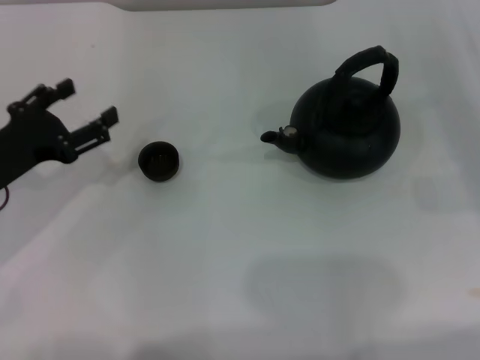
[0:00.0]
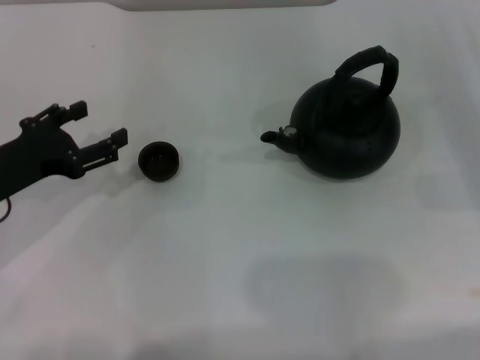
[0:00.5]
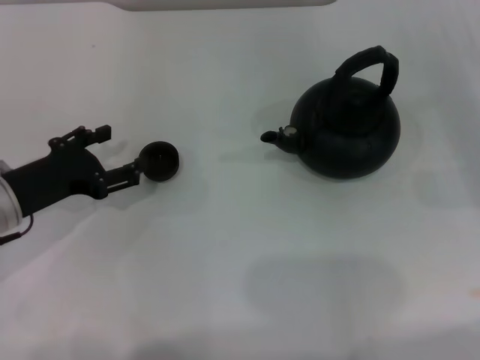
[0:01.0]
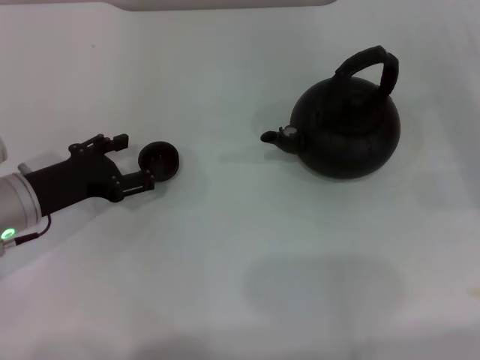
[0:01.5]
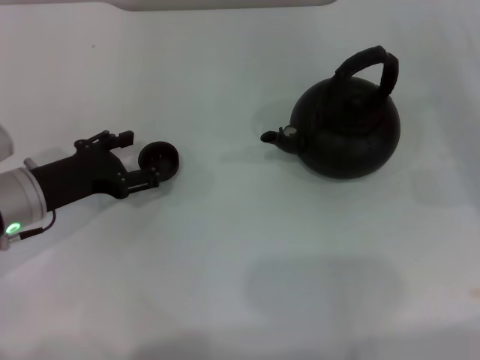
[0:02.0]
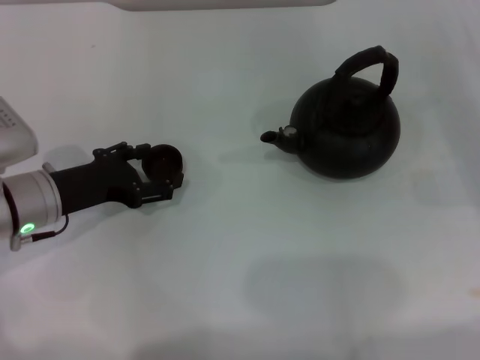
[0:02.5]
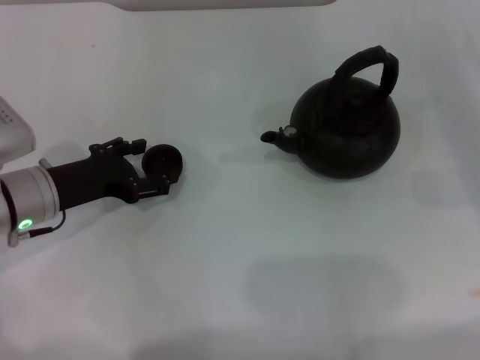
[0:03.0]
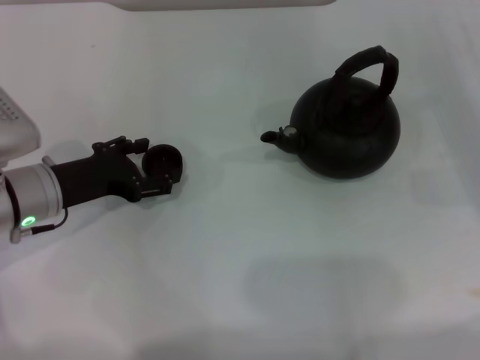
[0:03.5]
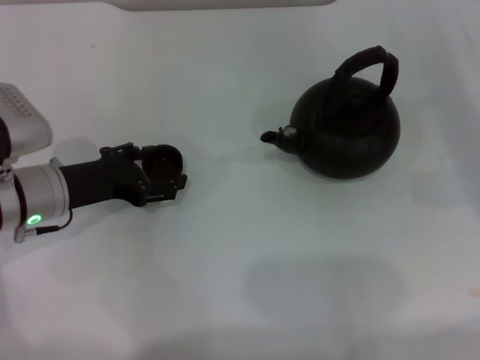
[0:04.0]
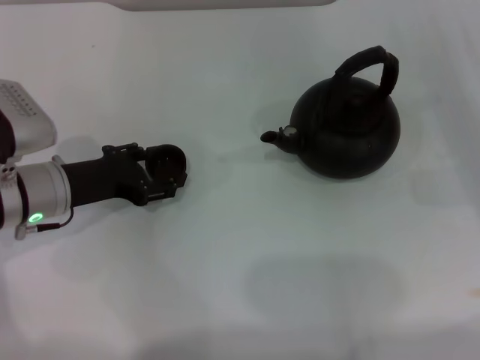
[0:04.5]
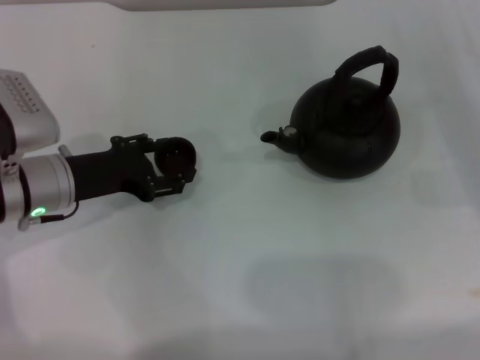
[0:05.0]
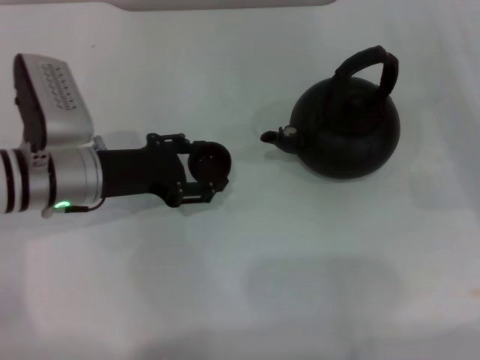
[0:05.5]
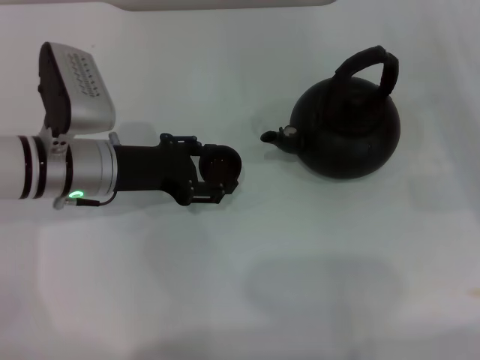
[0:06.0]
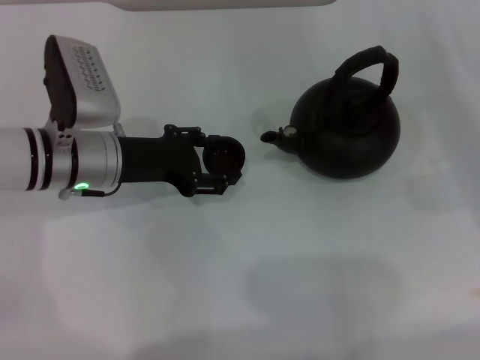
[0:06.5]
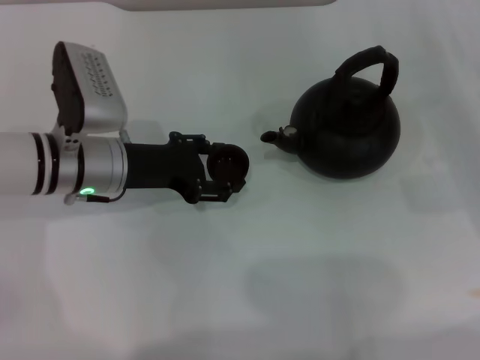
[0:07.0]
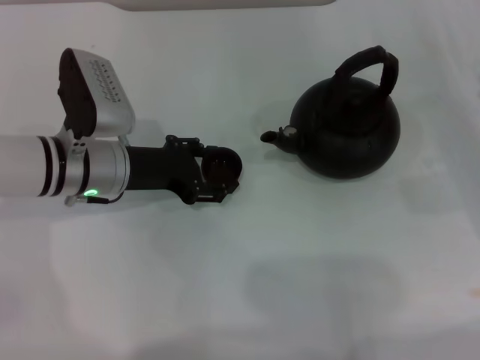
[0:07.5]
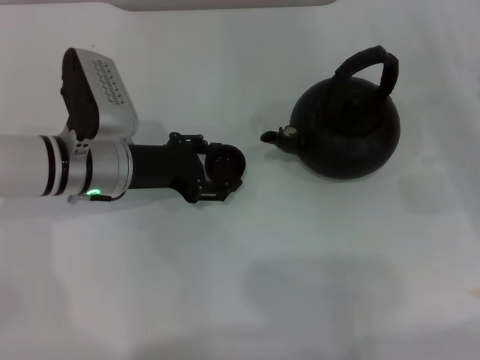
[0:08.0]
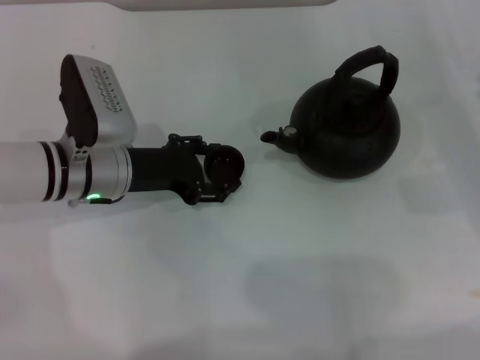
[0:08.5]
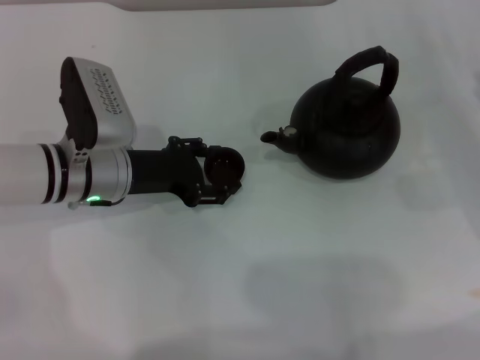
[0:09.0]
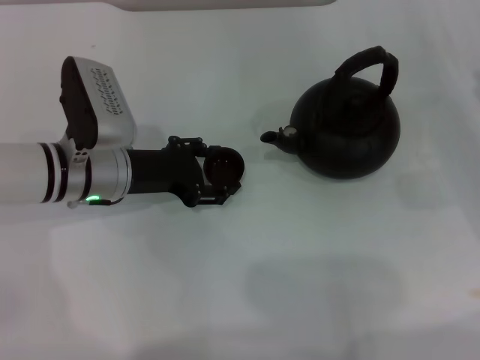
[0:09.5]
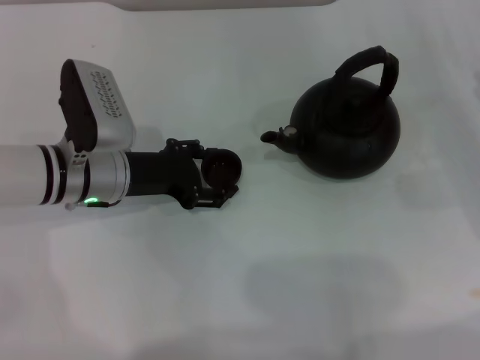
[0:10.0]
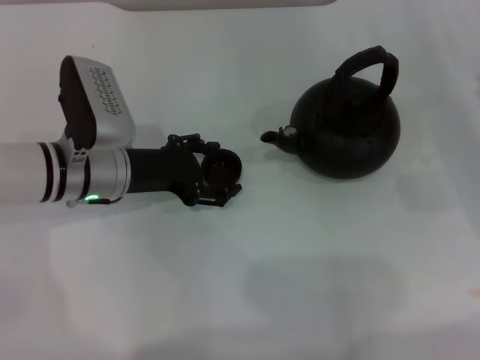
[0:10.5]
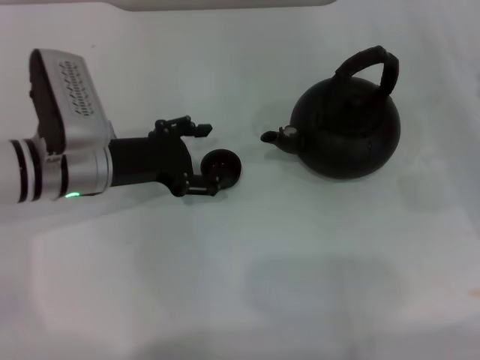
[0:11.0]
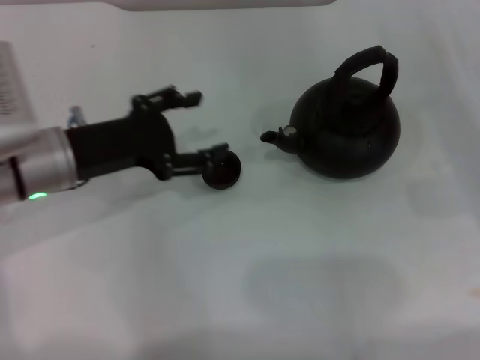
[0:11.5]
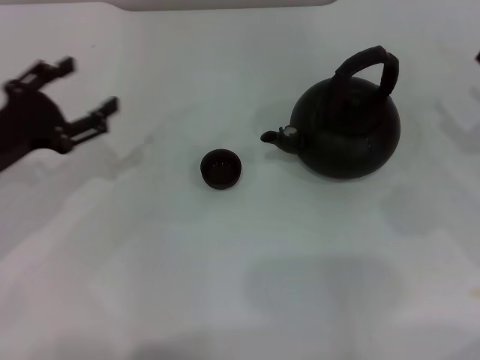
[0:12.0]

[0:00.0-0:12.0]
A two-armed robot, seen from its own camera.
Task of the whole recording: Grasp the handle of the teapot with one hand and pour tea into the teacup.
Step, 0:00.0 to 0:05.0: Pick up the teacup with the left gripper.
Step, 0:05.5 to 0:11.0: Place the teacup in the center of view with the left gripper.
0:00.0 to 0:02.0: The left gripper opens its fingers.
0:02.0 to 0:04.0: The grippers stay close to where they were, moving slightly.
0:04.0 to 0:06.0: The left gripper ends up about 5 cm from where it was, and closes its fingers.
0:06.0 to 0:08.0: The grippers make only small movements.
0:08.0 to 0:10.0: Both grippers stay put.
0:10.0 to 0:12.0: The left gripper heads to the left and backward, covering about 15 cm, and opens up.

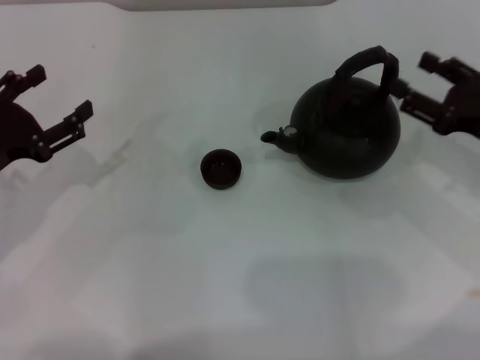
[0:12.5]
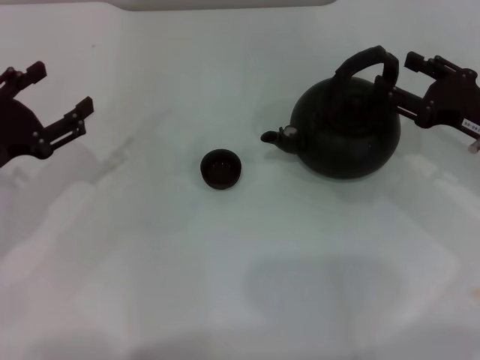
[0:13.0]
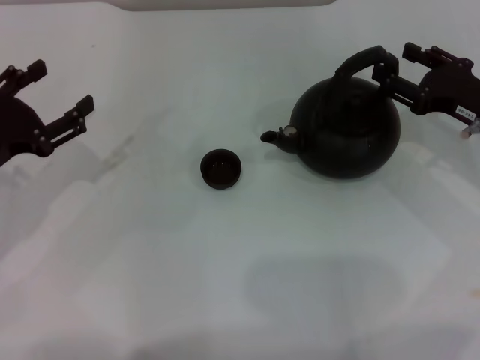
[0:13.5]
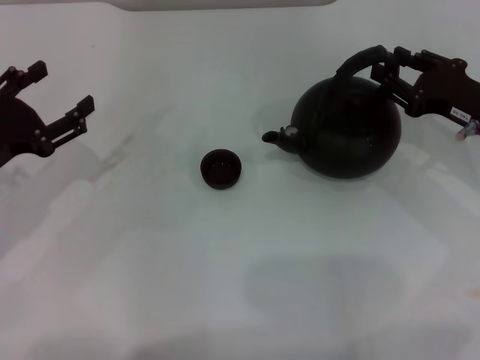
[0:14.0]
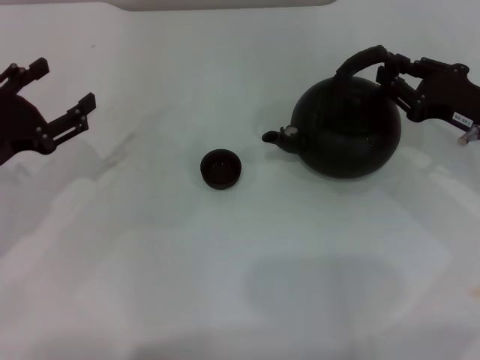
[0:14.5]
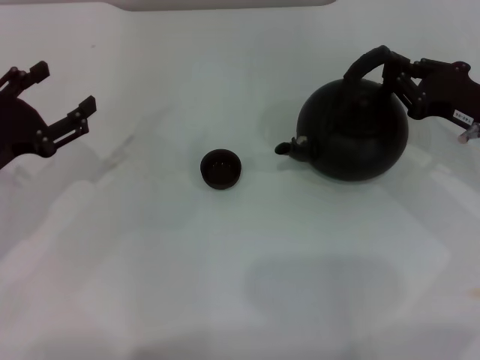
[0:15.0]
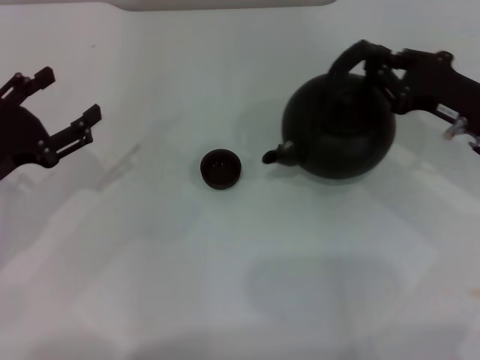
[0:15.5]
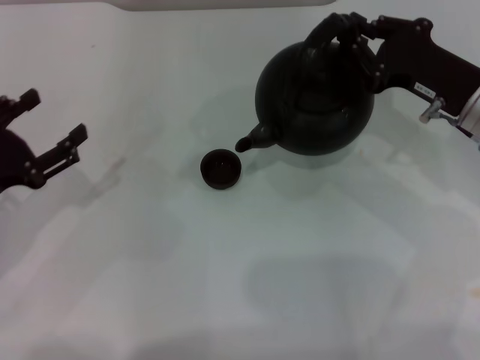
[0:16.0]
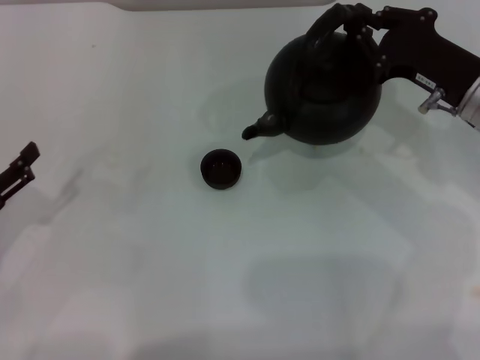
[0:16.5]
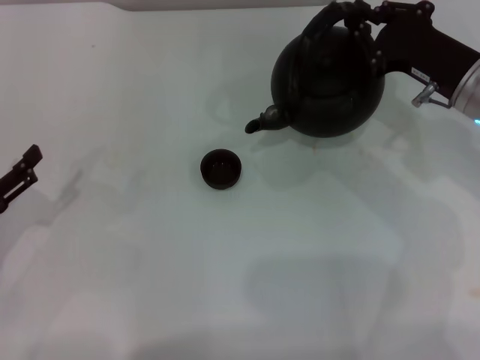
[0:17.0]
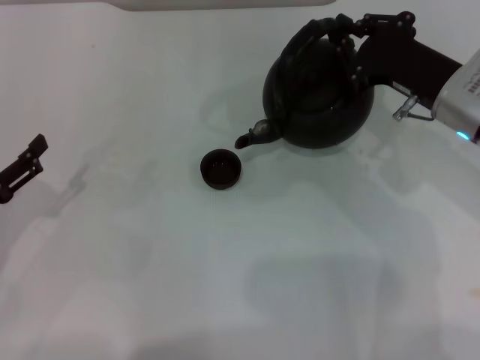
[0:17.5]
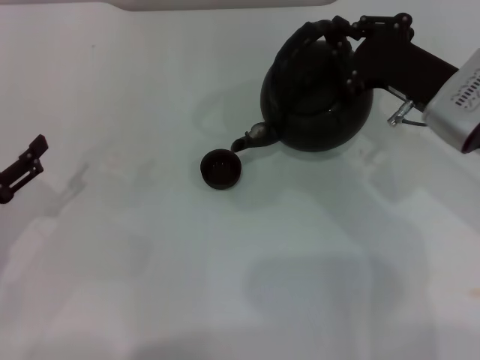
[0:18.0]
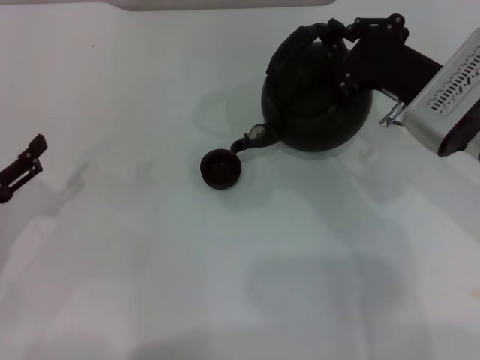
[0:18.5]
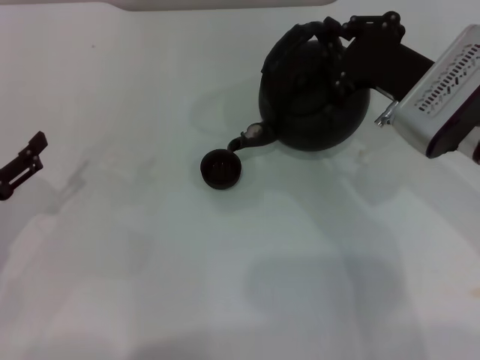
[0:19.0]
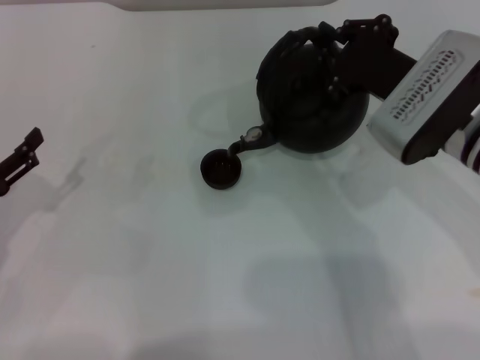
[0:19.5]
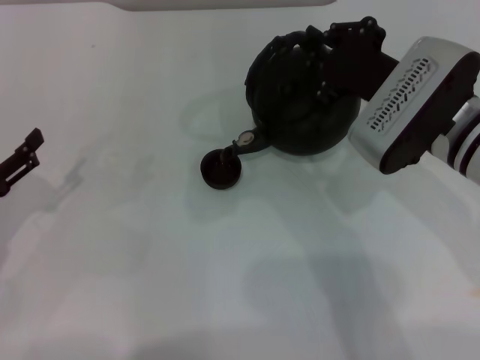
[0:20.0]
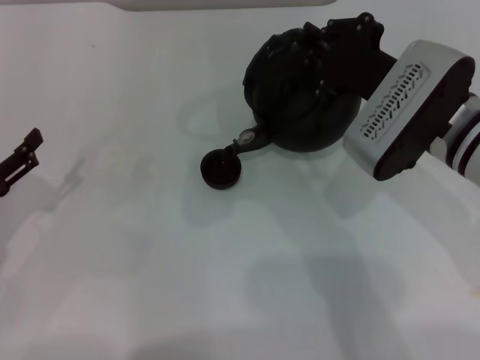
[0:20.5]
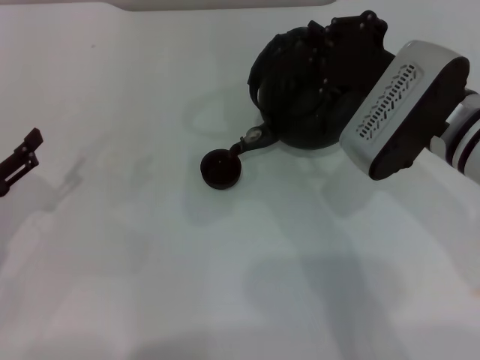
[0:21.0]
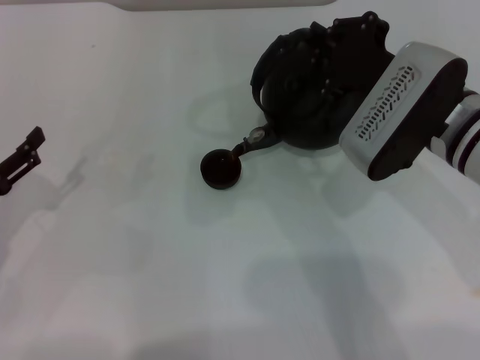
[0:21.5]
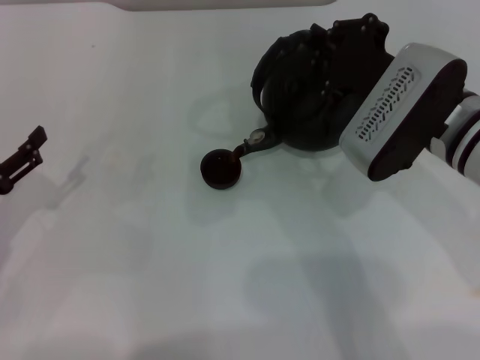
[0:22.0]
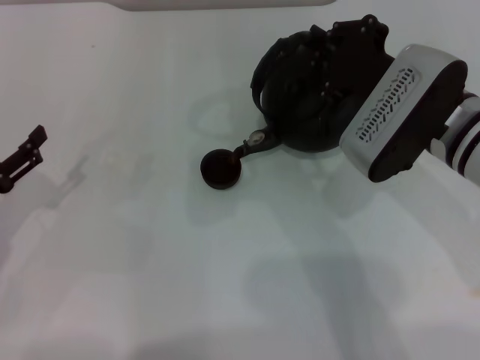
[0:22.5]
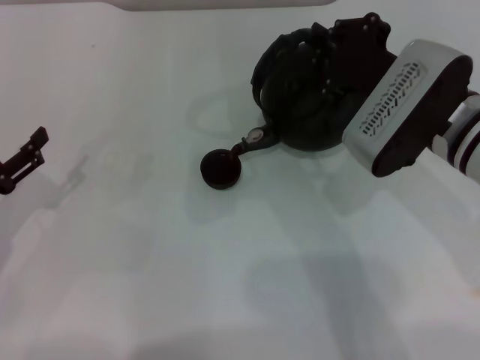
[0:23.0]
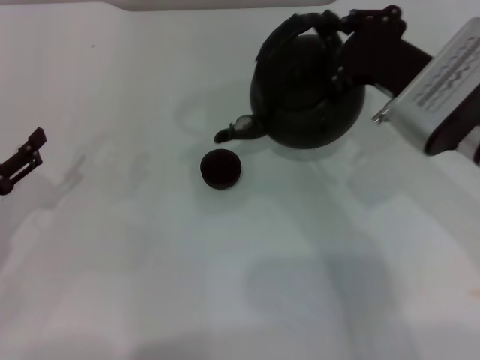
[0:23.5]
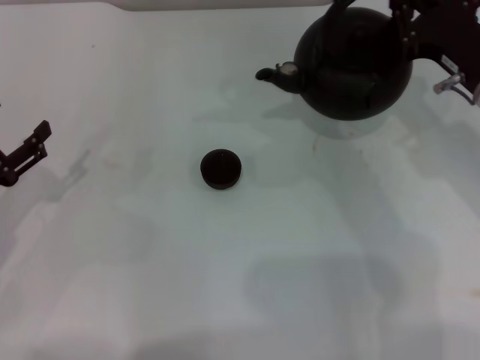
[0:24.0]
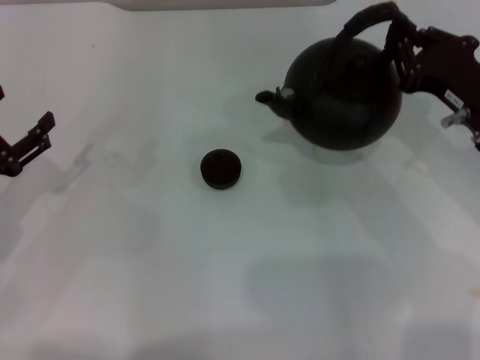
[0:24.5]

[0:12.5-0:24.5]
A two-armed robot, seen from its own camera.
Task of the whole recording: Grasp the handle of the teapot with one hand and pour tea into the teacup.
Step, 0:12.5 to 0:17.0: Pick up the teapot with the right gripper.
Step, 0:17.5 to 0:23.5: Pour tea into the teacup with the right gripper.
0:12.5 to 0:14.5: The right gripper closes up.
0:14.5 to 0:16.5: The left gripper goes approximately 5 cm backward, while the right gripper changes place by approximately 5 cm, and closes up.
0:18.5 to 0:20.5: The grippers move only a little.
0:20.5 to 0:22.5: The two grippers keep their place.
0:22.5 to 0:24.5: The right gripper shifts about 10 cm to the right.

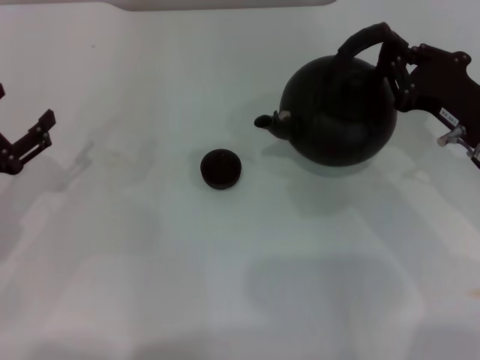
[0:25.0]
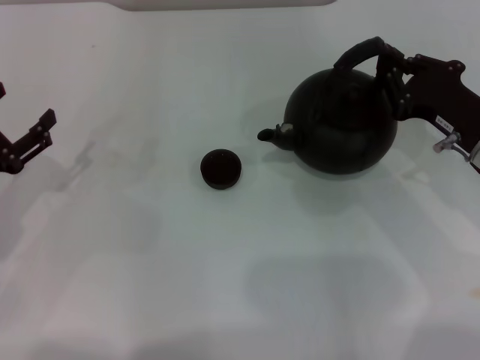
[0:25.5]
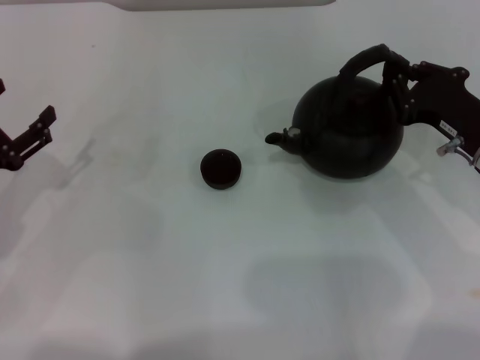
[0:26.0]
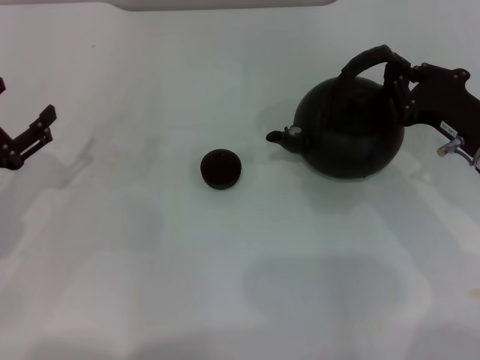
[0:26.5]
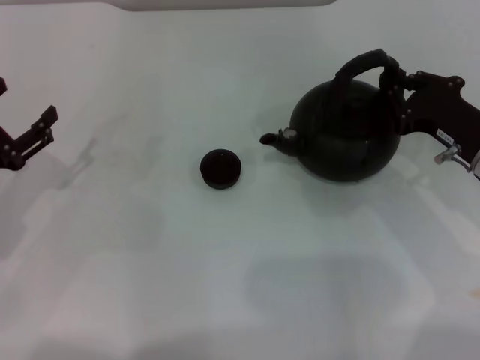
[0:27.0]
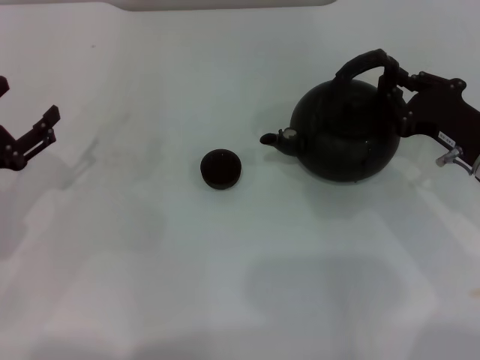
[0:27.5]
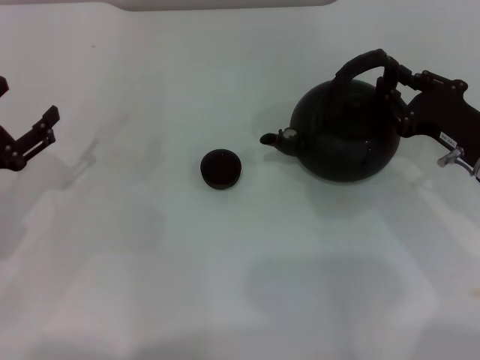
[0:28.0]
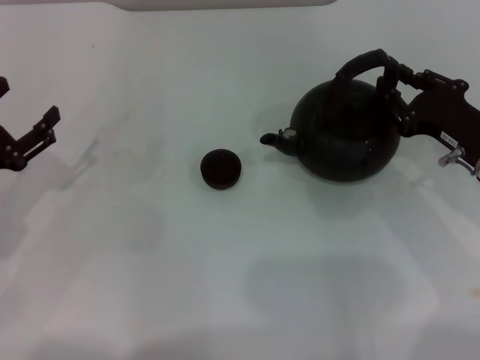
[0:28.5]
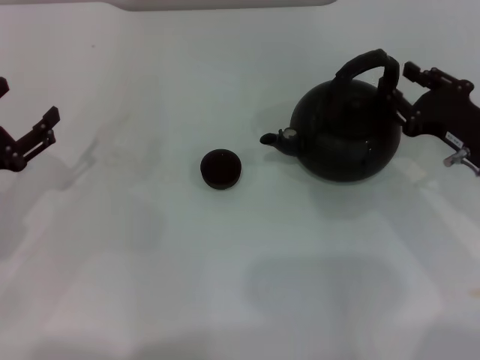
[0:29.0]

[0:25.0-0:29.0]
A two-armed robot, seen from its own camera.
Task of the whole recording: Grasp the handle of the teapot with one hand and pour tea into the teacup.
0:25.0 to 0:27.0: The grippers move only a little.
0:27.0 to 0:29.0: The right gripper opens.
